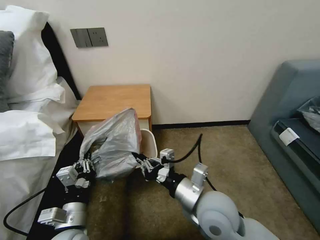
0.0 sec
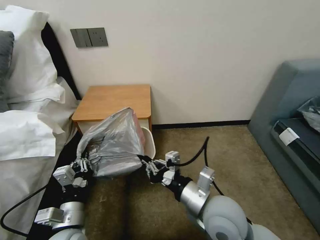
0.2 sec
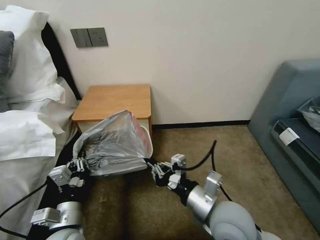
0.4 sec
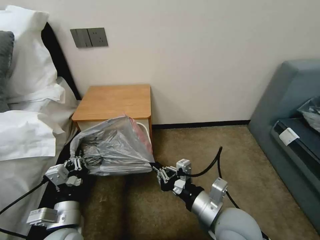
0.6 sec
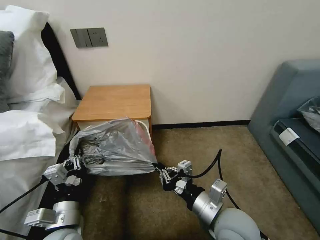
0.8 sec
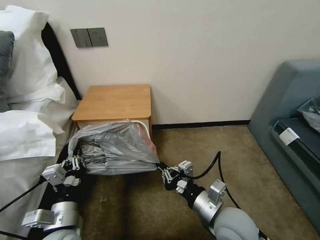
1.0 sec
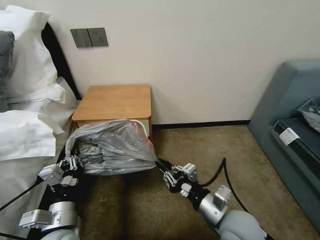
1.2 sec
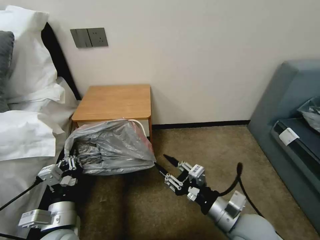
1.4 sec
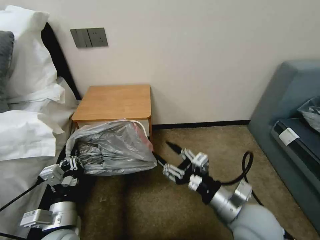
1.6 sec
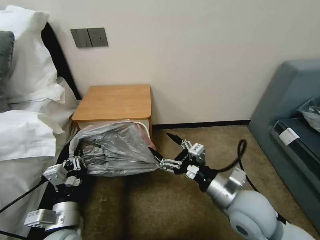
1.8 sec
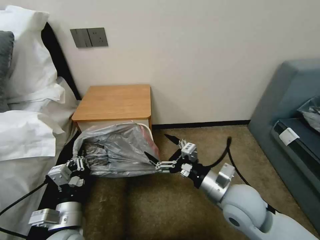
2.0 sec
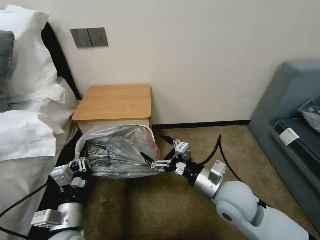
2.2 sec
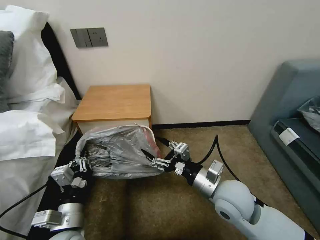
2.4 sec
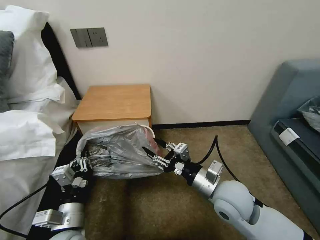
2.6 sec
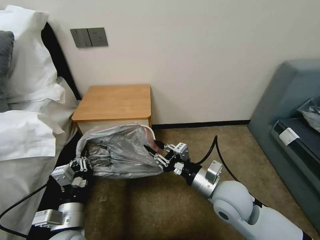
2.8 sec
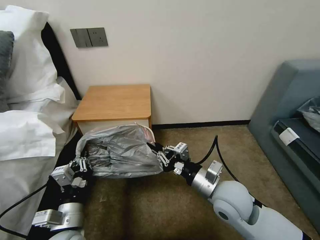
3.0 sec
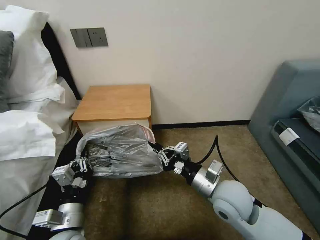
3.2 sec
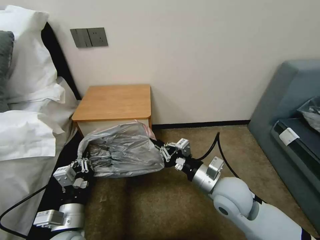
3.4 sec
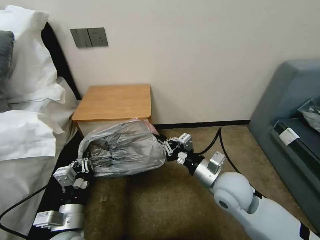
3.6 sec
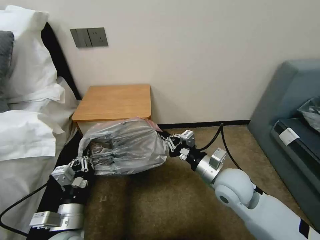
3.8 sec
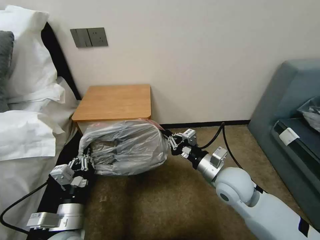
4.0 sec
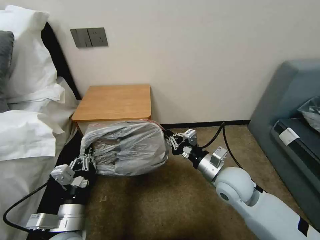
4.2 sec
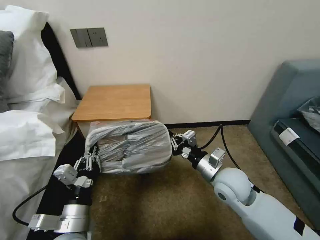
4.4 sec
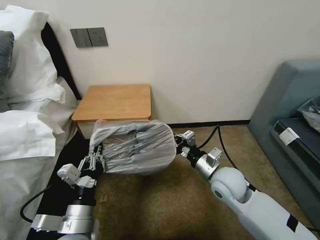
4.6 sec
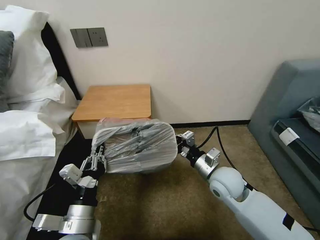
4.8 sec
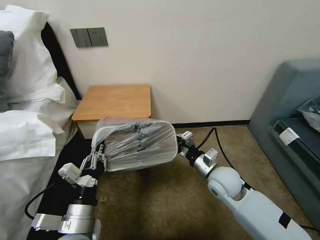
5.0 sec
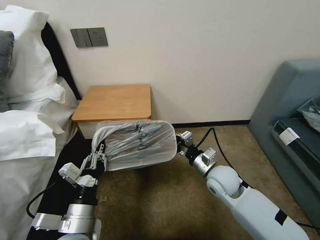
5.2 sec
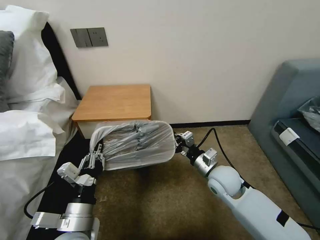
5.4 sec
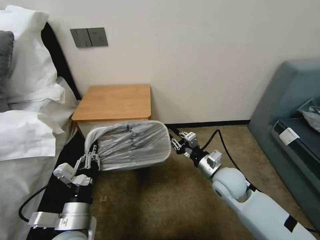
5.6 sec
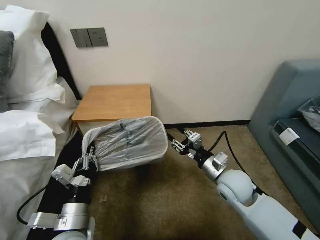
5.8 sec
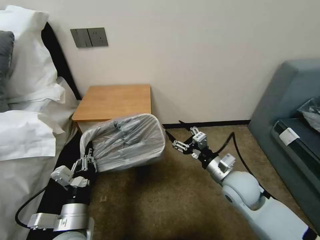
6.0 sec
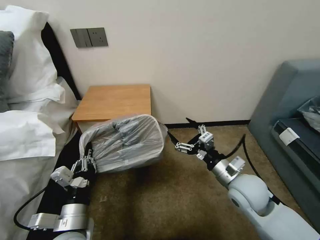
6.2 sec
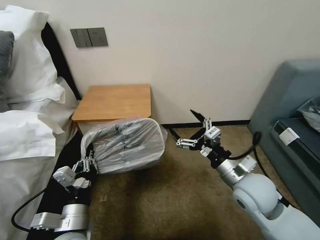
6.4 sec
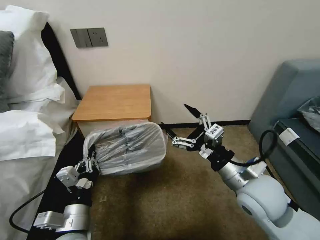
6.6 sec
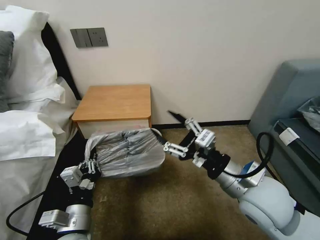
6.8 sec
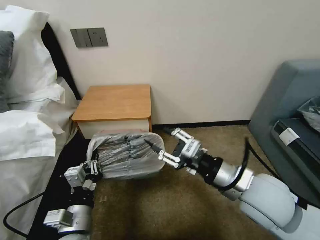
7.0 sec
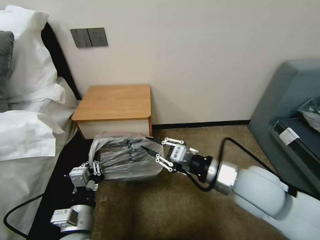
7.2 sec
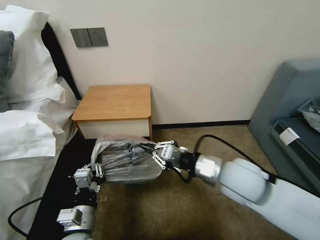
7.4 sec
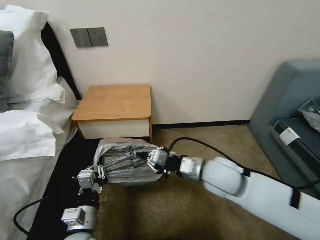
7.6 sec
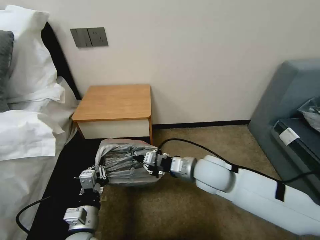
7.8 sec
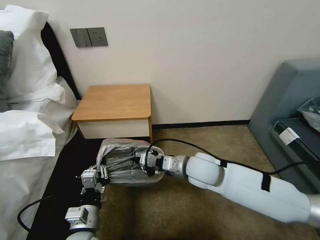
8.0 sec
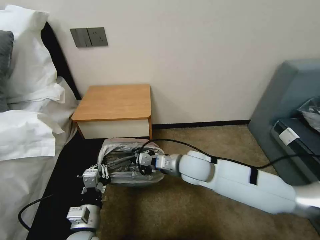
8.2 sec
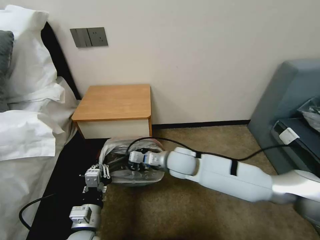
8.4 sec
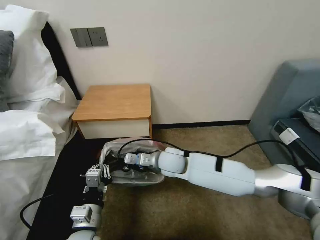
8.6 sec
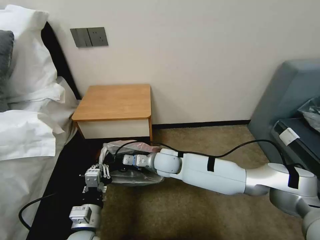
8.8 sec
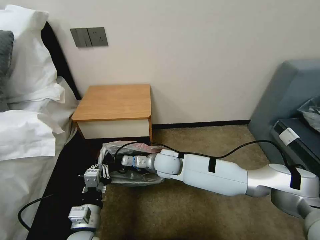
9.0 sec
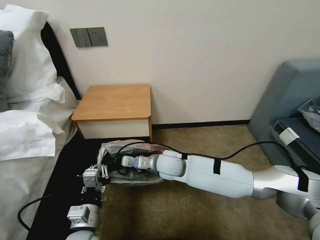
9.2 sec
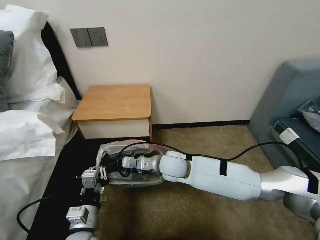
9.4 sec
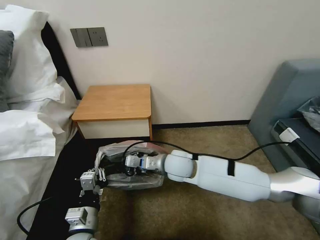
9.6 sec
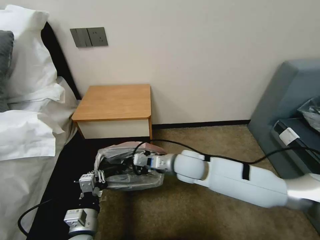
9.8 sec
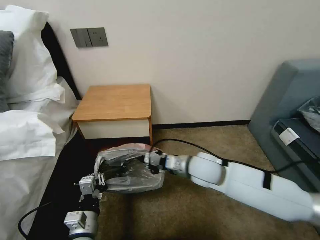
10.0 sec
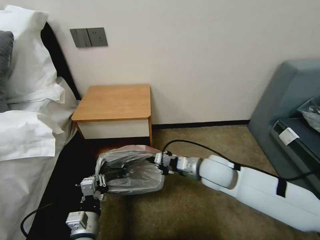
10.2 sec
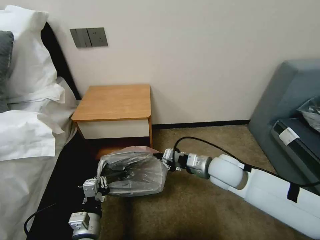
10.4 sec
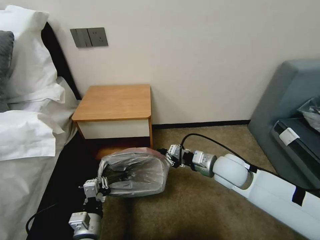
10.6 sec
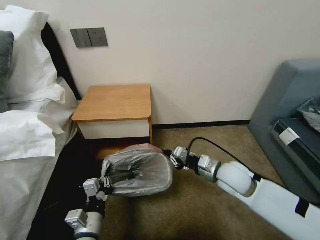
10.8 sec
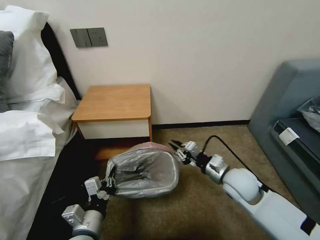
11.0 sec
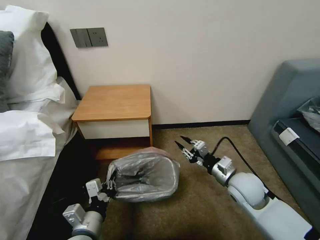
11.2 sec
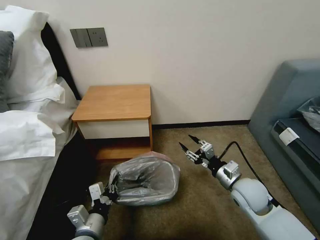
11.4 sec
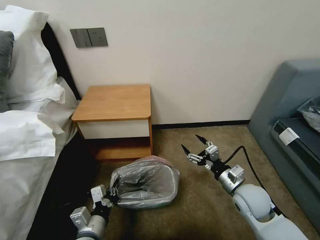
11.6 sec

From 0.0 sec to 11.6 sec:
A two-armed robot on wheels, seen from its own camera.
Task of the whole recording: Pick up the garbage bag from the table and place it over the trash can.
From 0.0 sec to 1.4 sec: The right gripper moves to the right, about 10 cm, and opens its fingers.
From 1.4 sec to 2.8 sec: The right gripper heads forward, covering about 10 cm, and opens, then closes once more.
From 2.8 sec to 4.4 sec: The right gripper shifts by about 5 cm.
From 4.4 sec to 5.8 sec: The right gripper opens up.
From 5.8 sec to 7.2 sec: The right gripper goes about 15 cm upward and backward, and opens, then closes again.
From 7.2 sec to 8.8 sec: The right gripper is displaced to the left, forward and downward by roughly 30 cm.
From 8.8 sec to 10.2 sec: The right gripper moves to the right and backward, roughly 15 cm.
From 10.2 sec to 11.6 sec: The right gripper shifts roughly 15 cm to the right, downward and backward, and opens.

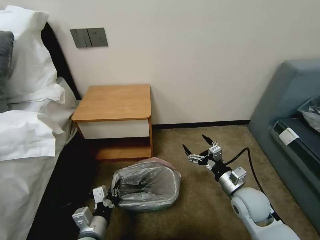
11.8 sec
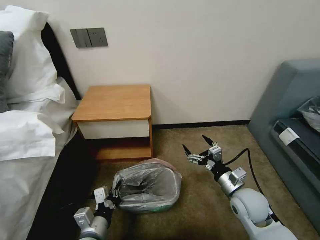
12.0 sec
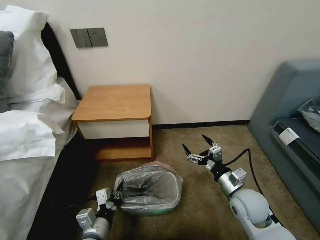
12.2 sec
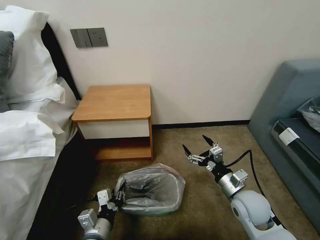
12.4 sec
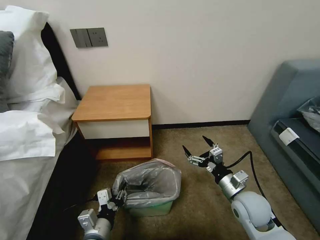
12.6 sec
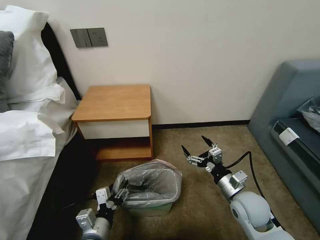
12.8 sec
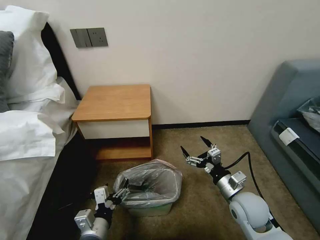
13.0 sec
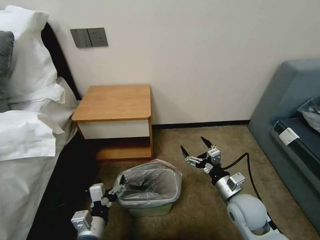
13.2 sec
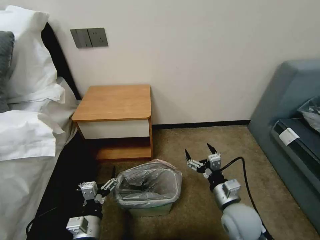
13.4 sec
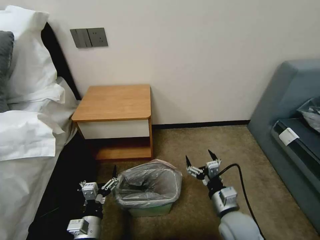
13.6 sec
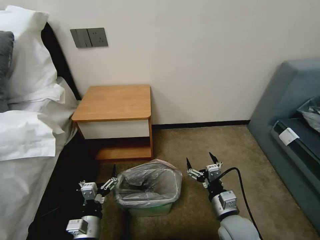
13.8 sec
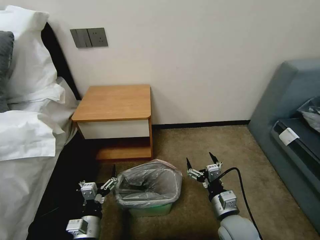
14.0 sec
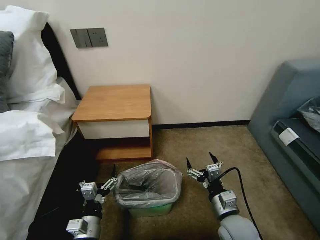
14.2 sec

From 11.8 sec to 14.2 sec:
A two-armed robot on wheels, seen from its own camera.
Task of the whole recording: Pick up the garbage bag from the table and place it over the trash can.
From 11.8 sec to 13.0 sec: The left gripper opens.
From 13.0 sec to 14.2 sec: The right gripper moves backward, about 5 cm.

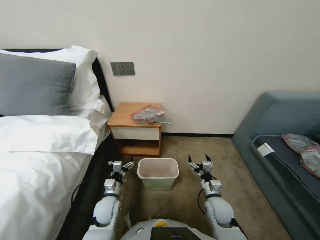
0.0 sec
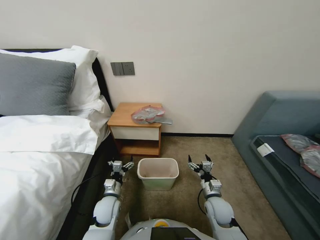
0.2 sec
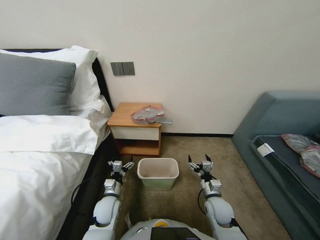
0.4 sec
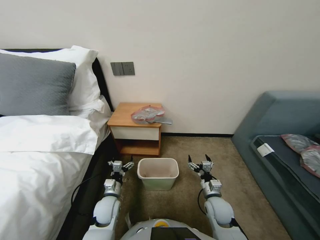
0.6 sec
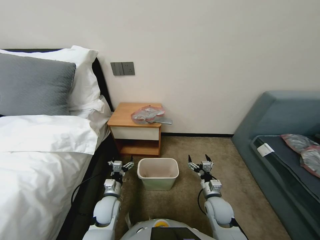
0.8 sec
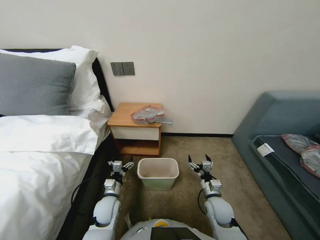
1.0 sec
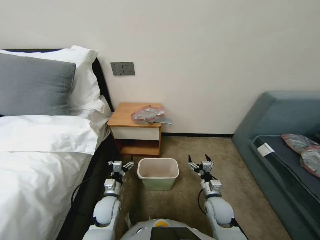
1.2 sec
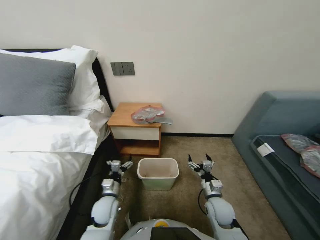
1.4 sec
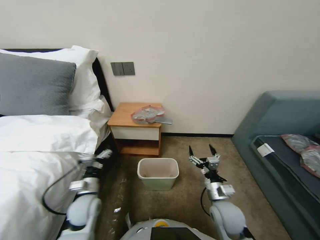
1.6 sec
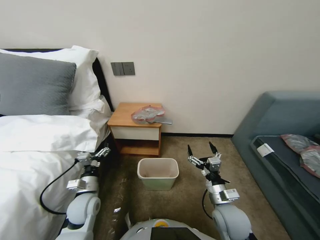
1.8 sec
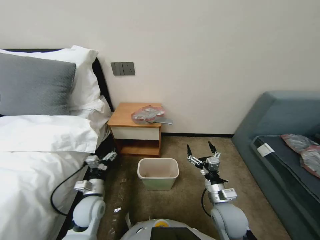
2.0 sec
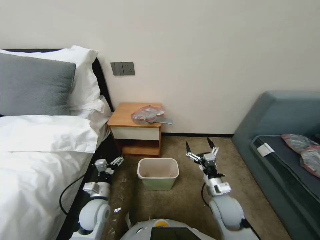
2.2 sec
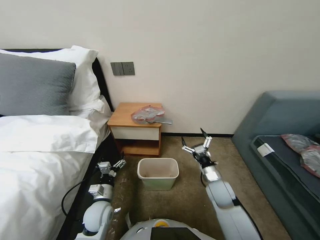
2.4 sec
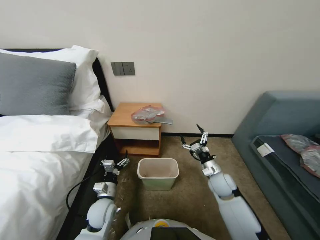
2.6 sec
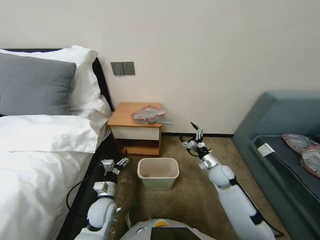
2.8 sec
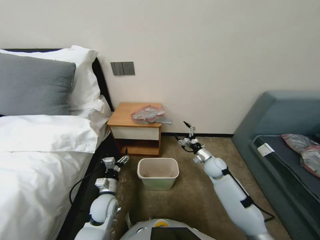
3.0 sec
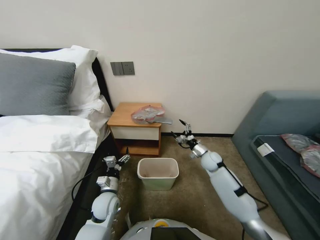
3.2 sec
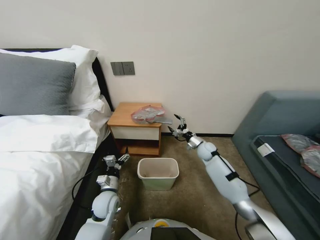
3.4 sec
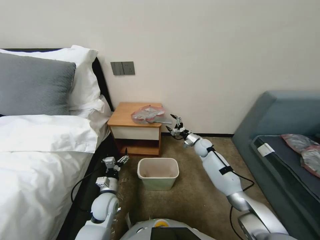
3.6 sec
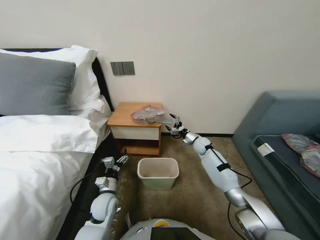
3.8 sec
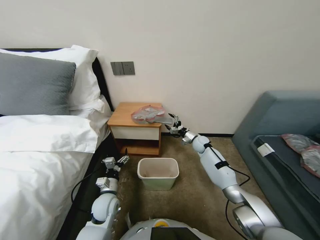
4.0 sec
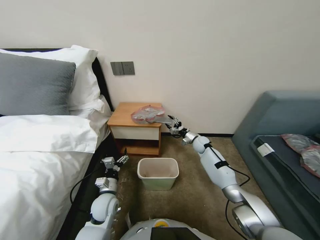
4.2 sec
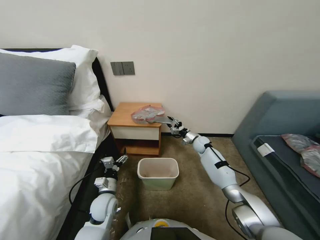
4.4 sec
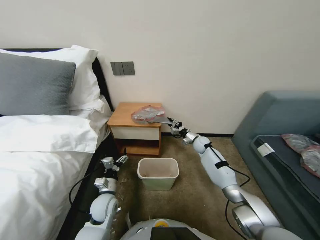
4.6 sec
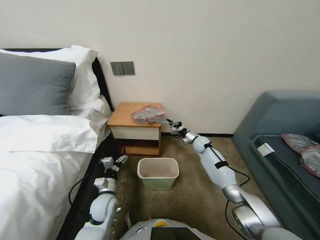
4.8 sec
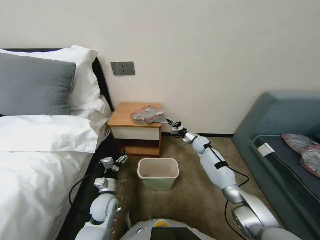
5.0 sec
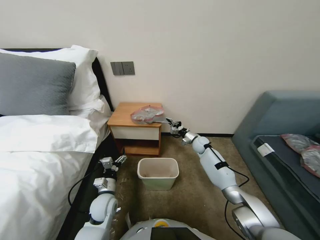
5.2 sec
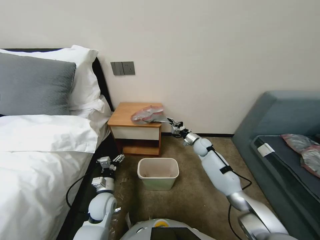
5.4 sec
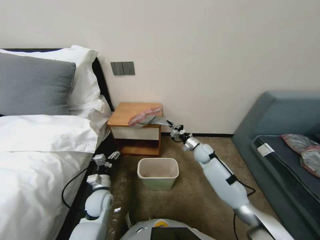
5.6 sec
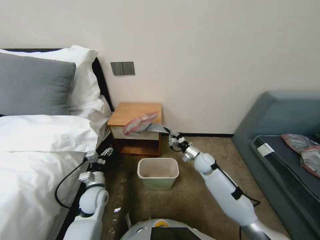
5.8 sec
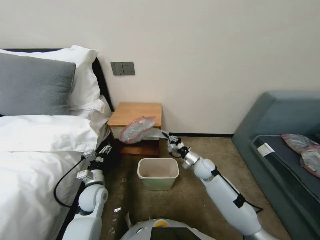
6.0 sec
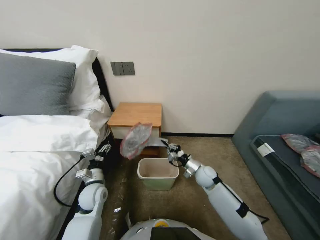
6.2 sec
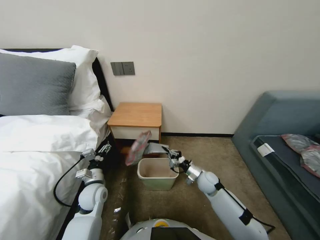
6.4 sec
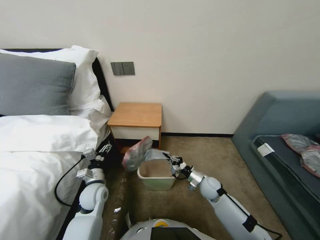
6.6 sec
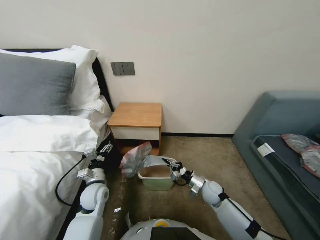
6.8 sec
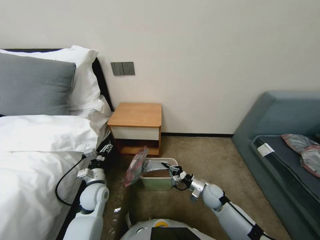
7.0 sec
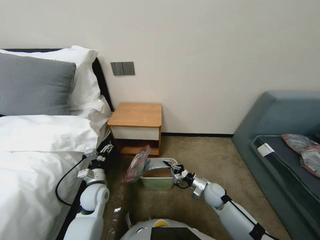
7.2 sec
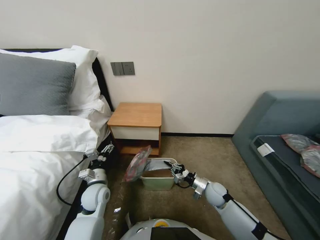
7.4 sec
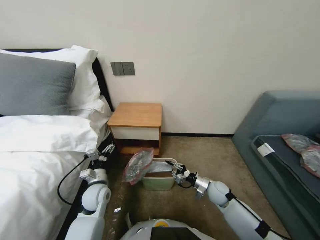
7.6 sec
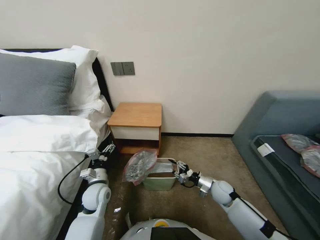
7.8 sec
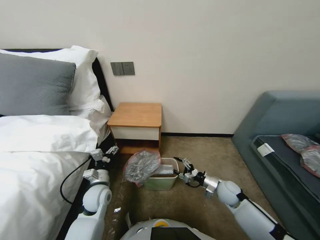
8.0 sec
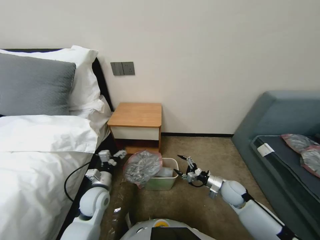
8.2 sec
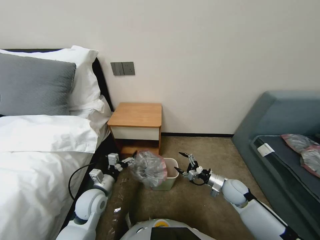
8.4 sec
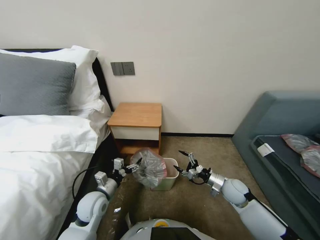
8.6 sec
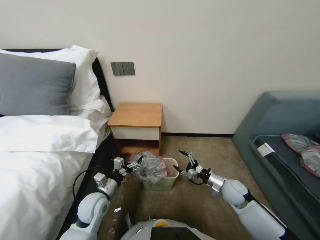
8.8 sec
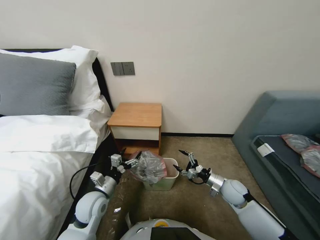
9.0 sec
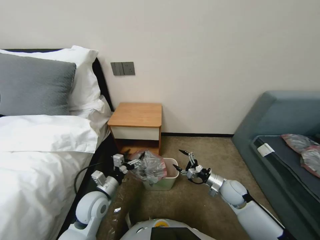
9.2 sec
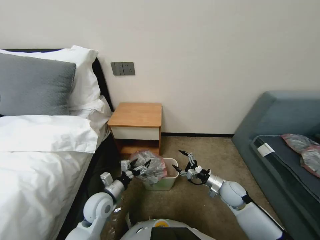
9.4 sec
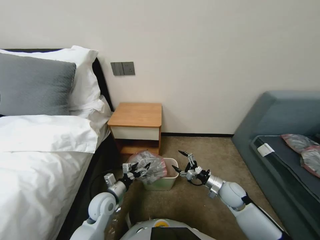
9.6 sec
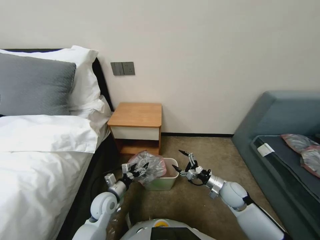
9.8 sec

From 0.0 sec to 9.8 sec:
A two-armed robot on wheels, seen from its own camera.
Task of the whole recording: Pick up the garbage bag from the table and place it over the trash can.
From 1.4 sec to 2.8 sec: The right gripper goes about 10 cm forward and upward.
From 2.8 sec to 4.2 sec: The right gripper shifts about 20 cm forward.
From 4.2 sec to 5.6 sec: The right gripper heads backward, covering roughly 5 cm, and closes.
From 5.6 sec to 7.0 sec: The right gripper goes approximately 20 cm backward and downward.
From 7.0 sec to 8.4 sec: The right gripper is displaced to the right by roughly 10 cm, and opens up.
From 8.4 sec to 9.8 sec: The left gripper is displaced downward by roughly 5 cm.
